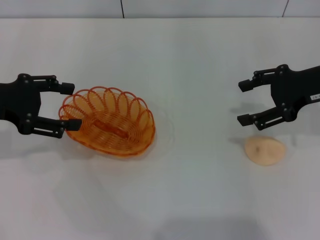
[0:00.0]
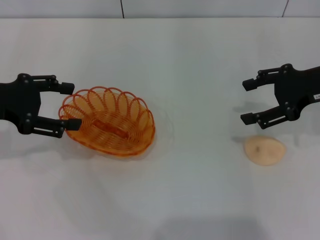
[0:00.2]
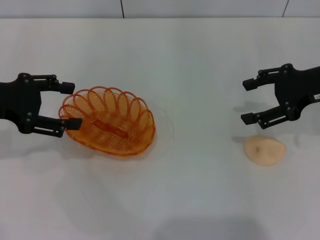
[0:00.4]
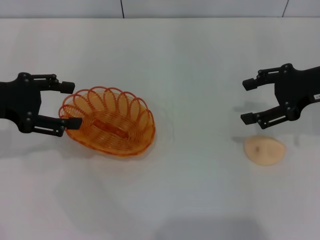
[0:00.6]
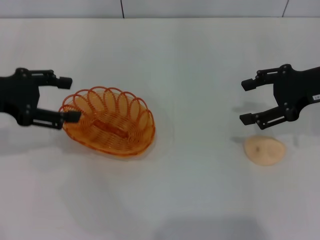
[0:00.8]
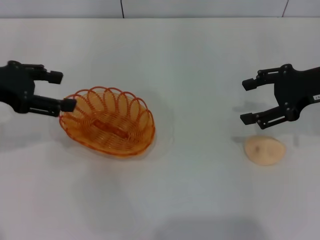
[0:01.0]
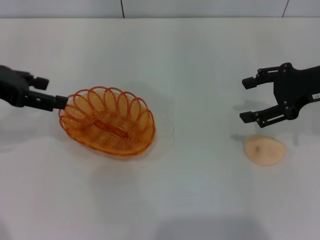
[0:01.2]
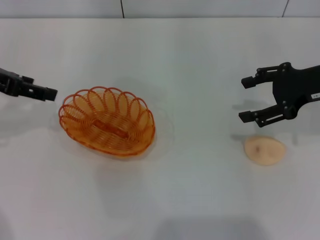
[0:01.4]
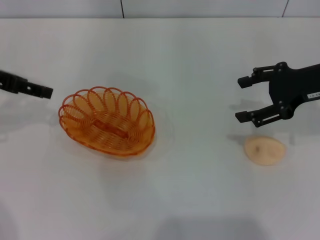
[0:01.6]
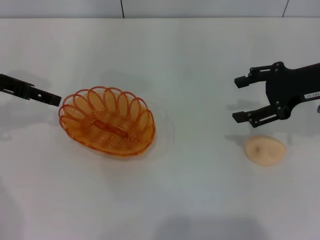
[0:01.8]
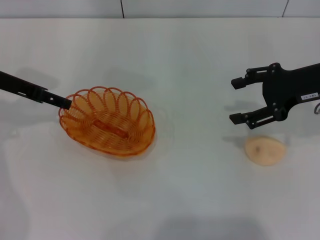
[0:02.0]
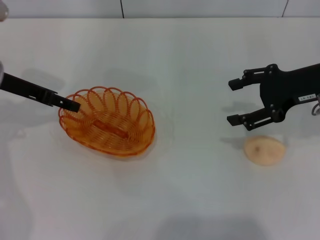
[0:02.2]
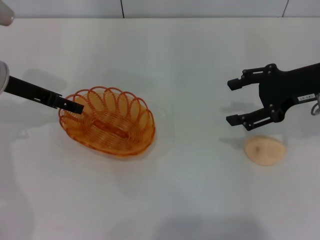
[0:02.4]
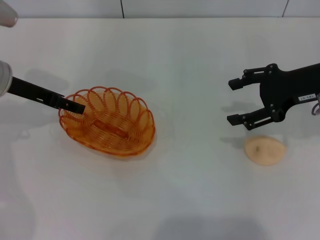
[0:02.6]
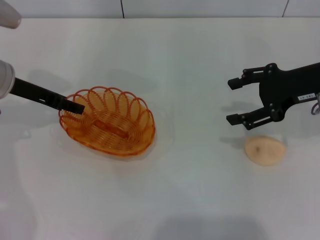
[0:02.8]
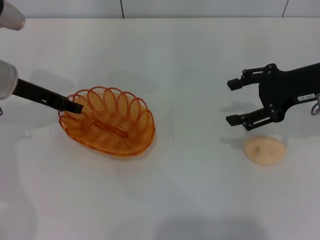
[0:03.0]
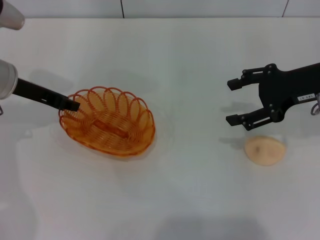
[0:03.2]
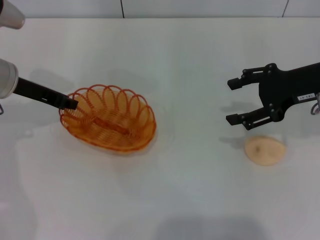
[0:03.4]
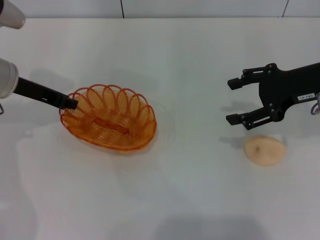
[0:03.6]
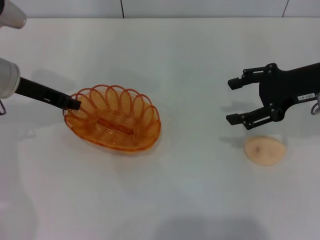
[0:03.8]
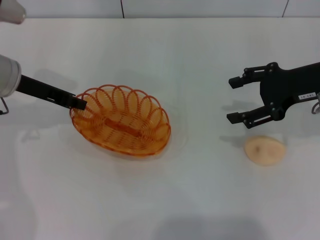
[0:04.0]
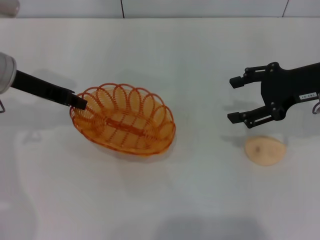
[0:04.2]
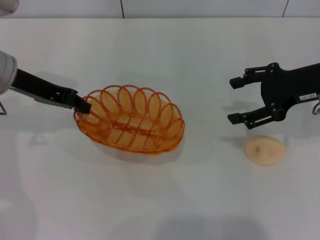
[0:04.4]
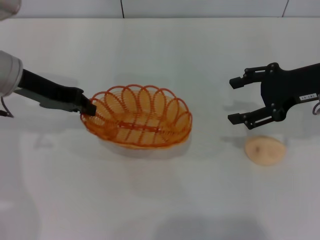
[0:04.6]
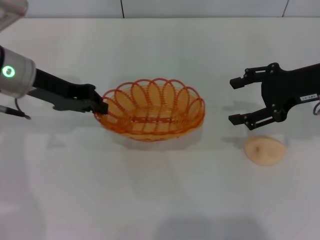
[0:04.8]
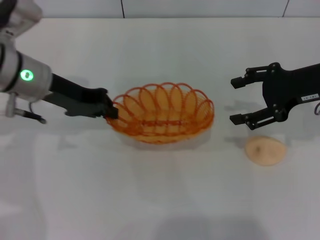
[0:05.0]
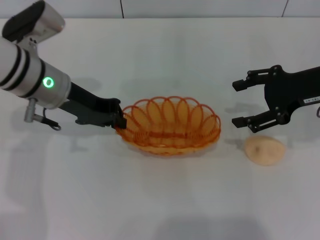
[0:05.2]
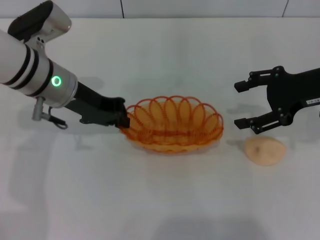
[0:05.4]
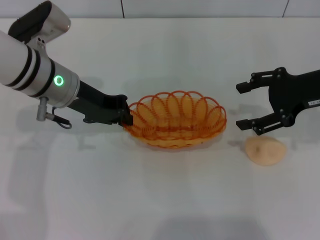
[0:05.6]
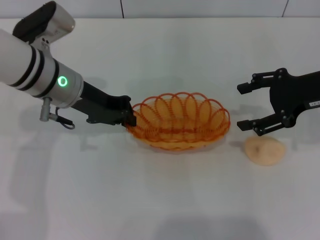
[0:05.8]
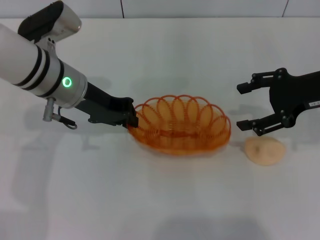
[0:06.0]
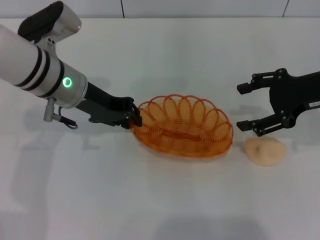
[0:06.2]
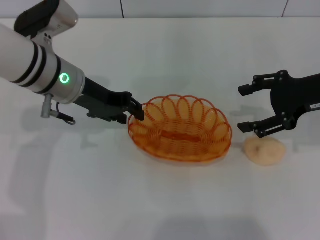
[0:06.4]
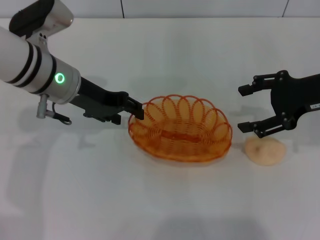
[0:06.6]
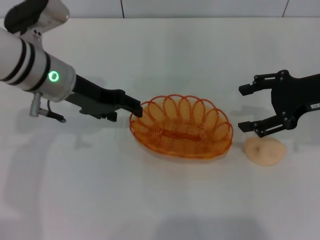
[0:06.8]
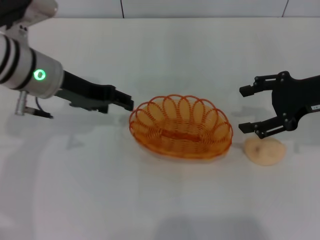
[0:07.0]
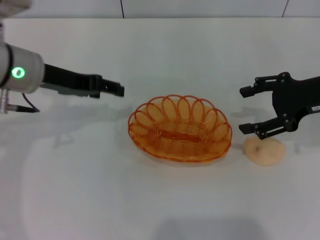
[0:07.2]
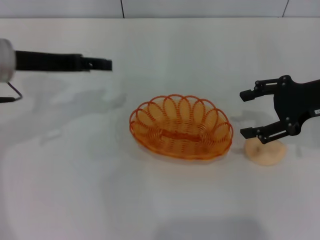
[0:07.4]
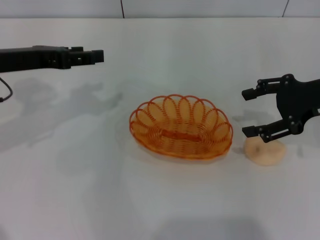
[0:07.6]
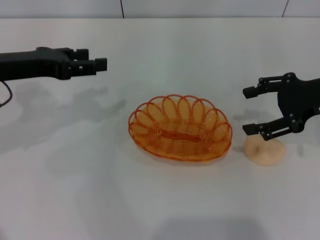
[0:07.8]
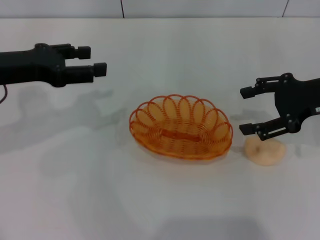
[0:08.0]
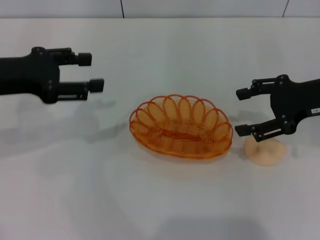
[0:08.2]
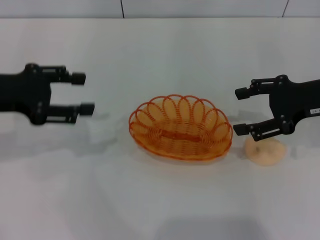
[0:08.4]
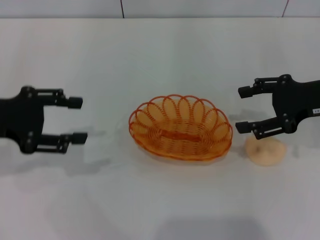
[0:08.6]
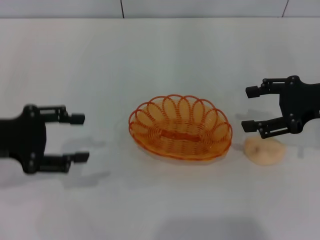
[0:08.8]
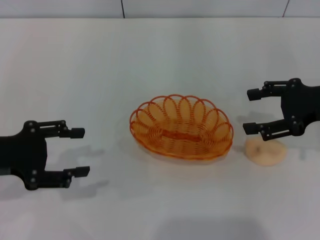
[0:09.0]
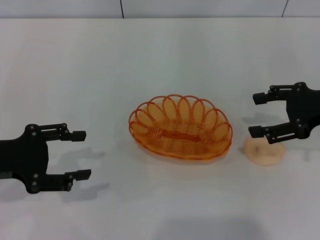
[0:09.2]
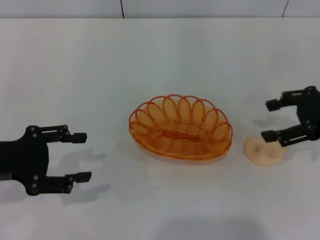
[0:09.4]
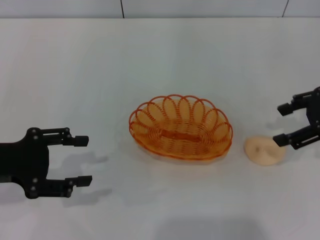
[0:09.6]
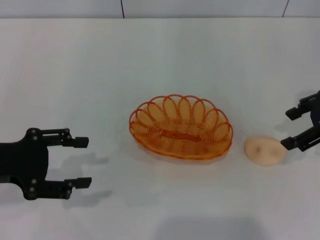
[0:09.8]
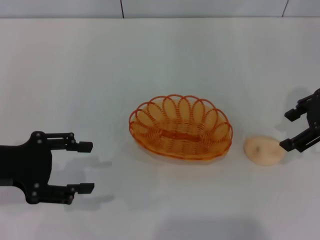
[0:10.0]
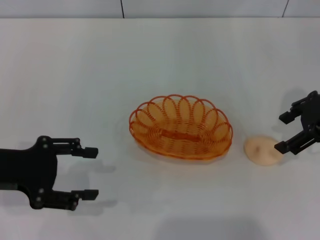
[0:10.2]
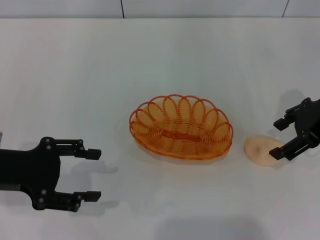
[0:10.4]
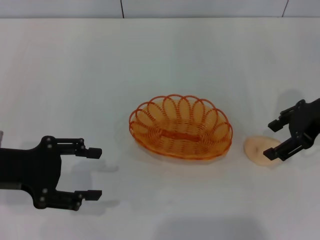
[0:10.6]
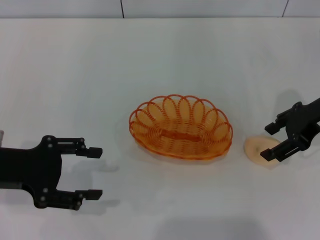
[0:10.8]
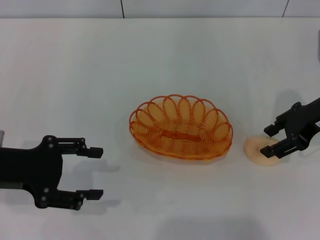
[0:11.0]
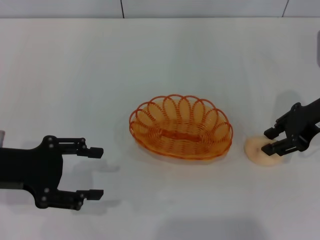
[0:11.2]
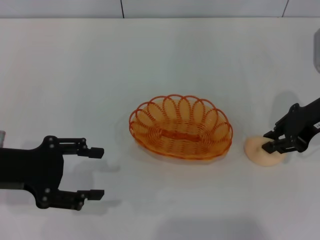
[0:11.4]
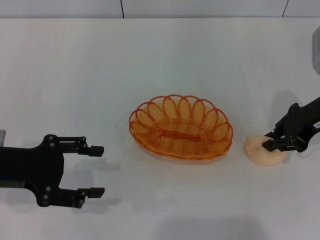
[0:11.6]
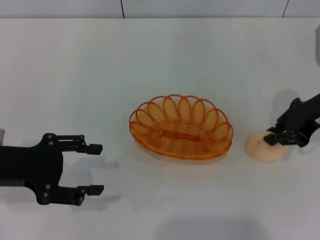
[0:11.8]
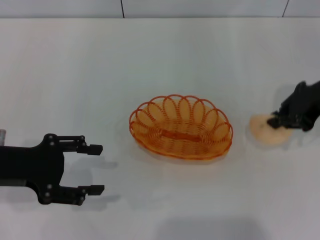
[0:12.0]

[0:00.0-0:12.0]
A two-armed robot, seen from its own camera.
Step, 0:00.0 to 0:04.4: Pick up the basket with the left gripper.
Step, 0:04.6 to 0:07.0: Place the basket in the center of view with the left gripper.
0:00.0 to 0:01.6: The left gripper moves about 5 cm.
0:01.6 to 0:03.0: The left gripper moves downward, about 5 cm, and closes.
0:03.0 to 0:04.4: The left gripper closes up.
0:04.4 to 0:06.0: The left gripper travels to the right by roughly 10 cm.
0:06.0 to 0:07.6: The left gripper heads to the left, covering approximately 10 cm, and opens up.
0:07.6 to 0:09.0: The left gripper is displaced backward by approximately 10 cm.
0:10.4 to 0:12.0: The right gripper closes.

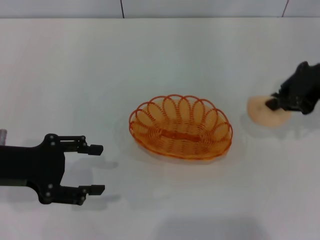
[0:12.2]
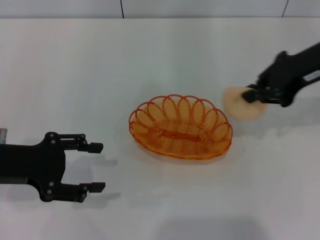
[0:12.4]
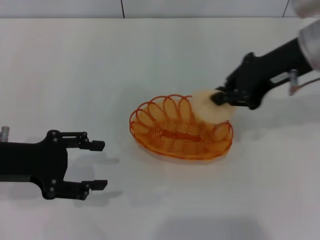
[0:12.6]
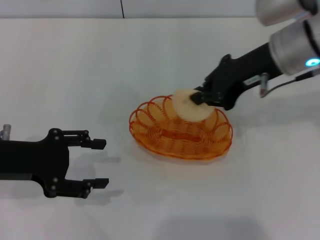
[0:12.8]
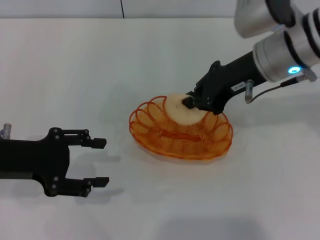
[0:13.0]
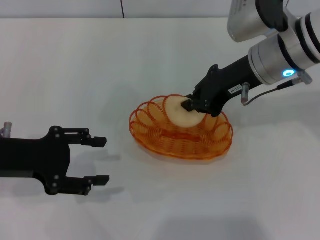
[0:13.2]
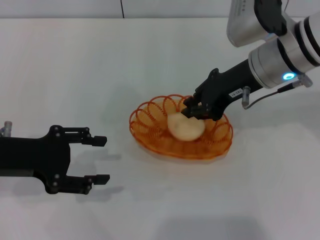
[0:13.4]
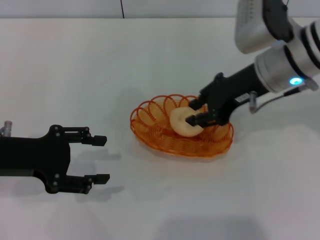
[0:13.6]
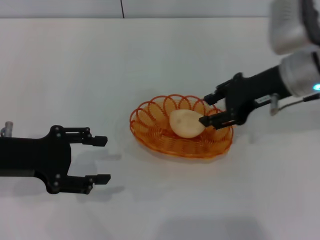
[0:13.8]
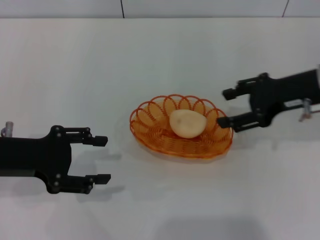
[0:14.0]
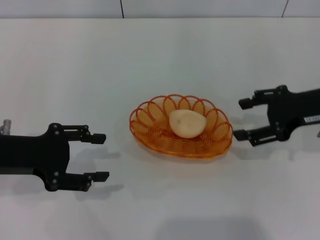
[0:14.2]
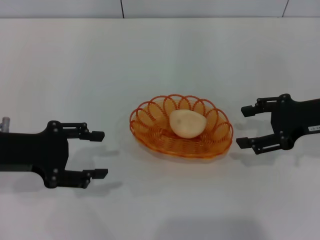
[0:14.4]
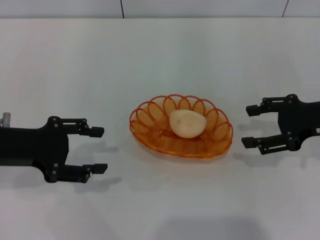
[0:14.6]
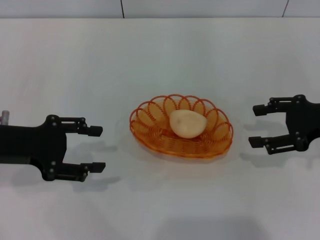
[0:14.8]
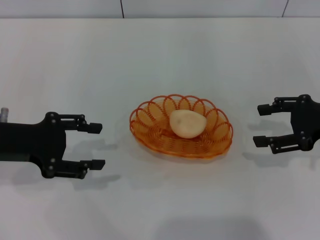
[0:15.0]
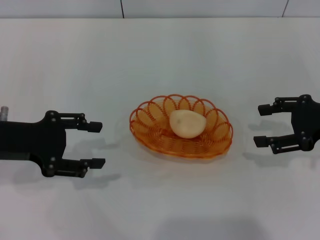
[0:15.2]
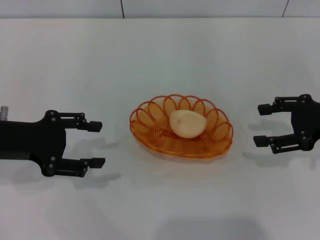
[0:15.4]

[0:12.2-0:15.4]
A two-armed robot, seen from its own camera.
Step, 0:12.4 to 0:13.8: Place the egg yolk pastry into the basket with the right gripper.
0:12.2 to 0:13.8: The right gripper shifts approximately 5 cm to the left.
0:13.8 to 0:15.4: The right gripper goes roughly 15 cm to the right and backward, and opens.
